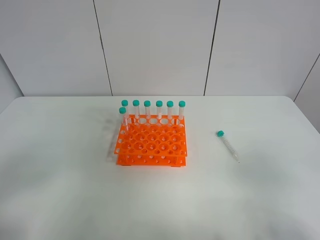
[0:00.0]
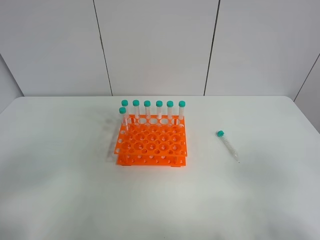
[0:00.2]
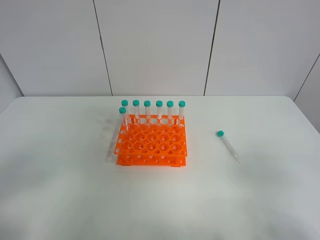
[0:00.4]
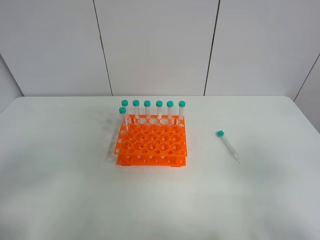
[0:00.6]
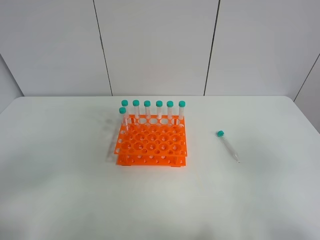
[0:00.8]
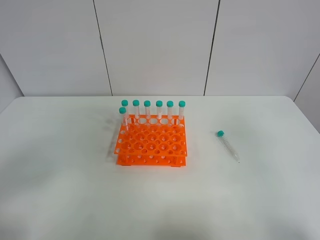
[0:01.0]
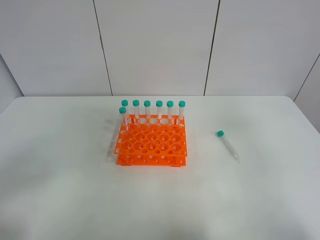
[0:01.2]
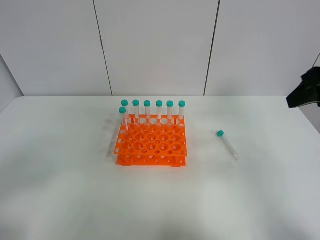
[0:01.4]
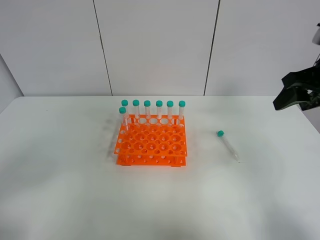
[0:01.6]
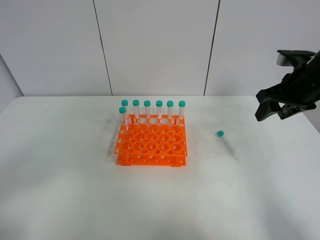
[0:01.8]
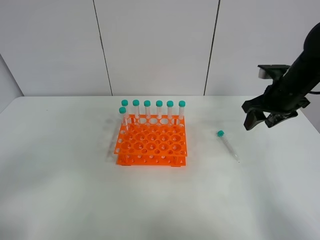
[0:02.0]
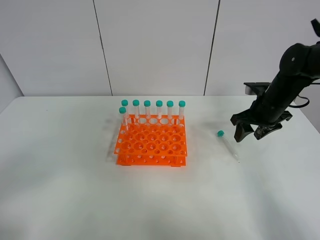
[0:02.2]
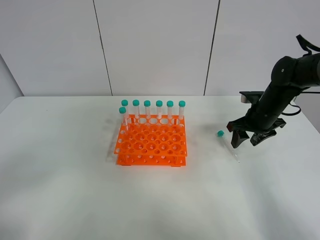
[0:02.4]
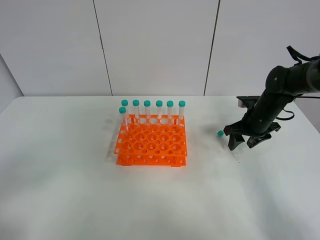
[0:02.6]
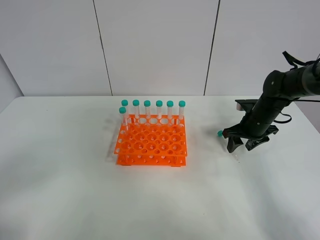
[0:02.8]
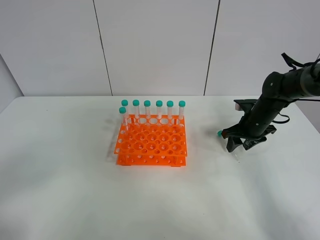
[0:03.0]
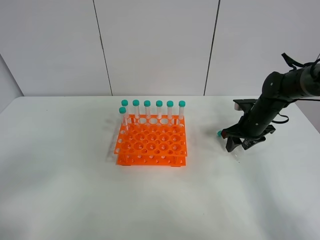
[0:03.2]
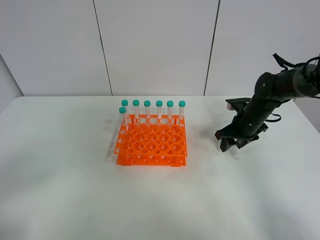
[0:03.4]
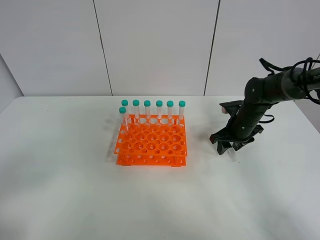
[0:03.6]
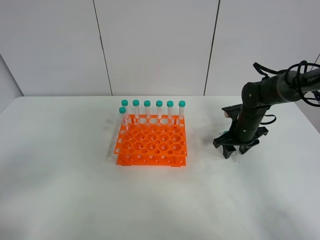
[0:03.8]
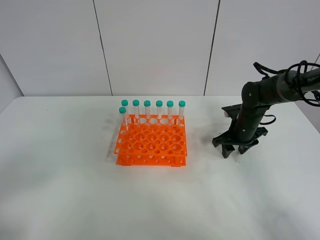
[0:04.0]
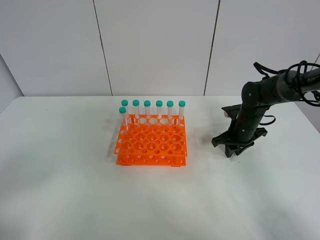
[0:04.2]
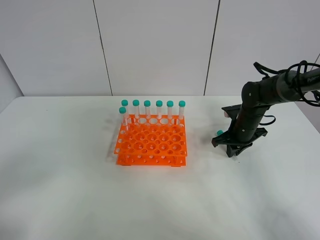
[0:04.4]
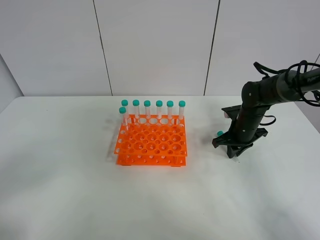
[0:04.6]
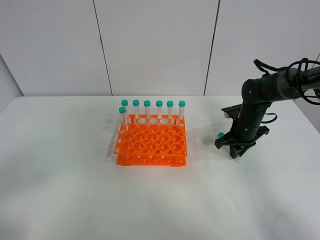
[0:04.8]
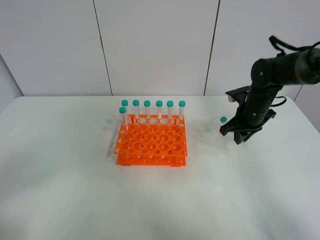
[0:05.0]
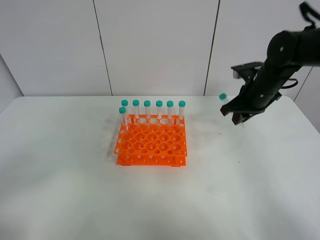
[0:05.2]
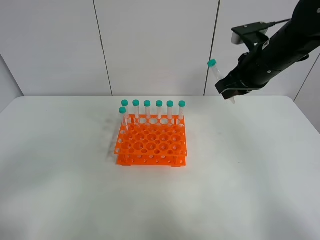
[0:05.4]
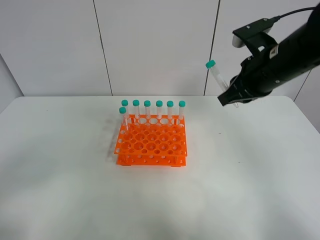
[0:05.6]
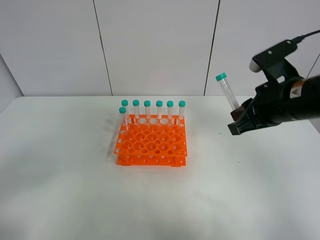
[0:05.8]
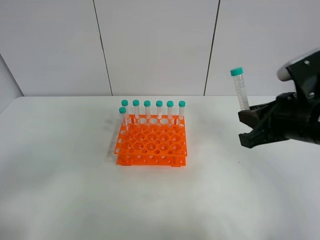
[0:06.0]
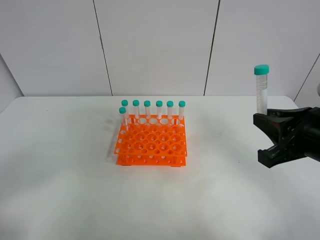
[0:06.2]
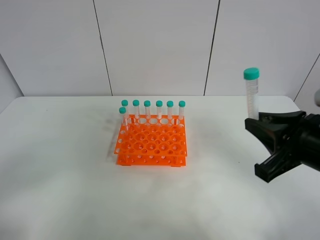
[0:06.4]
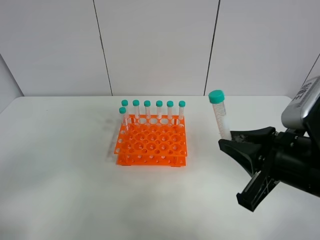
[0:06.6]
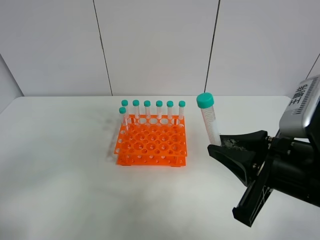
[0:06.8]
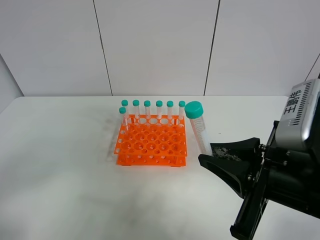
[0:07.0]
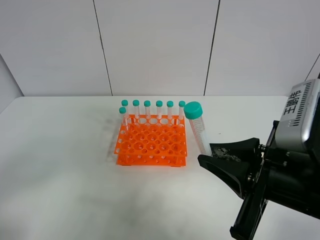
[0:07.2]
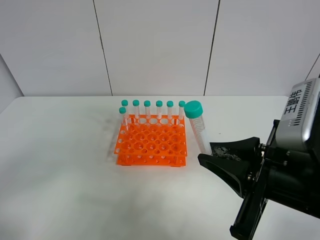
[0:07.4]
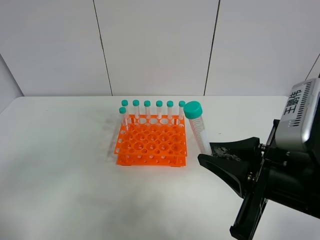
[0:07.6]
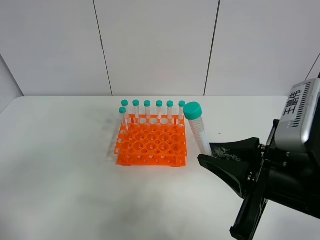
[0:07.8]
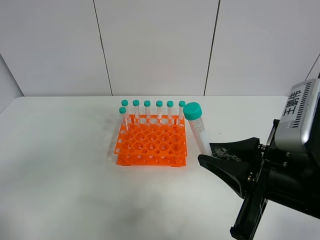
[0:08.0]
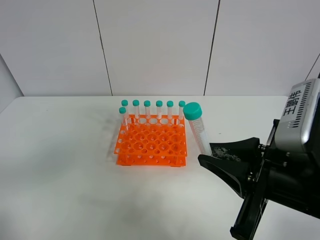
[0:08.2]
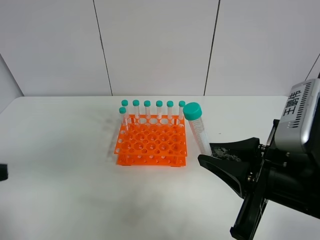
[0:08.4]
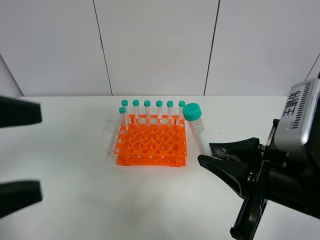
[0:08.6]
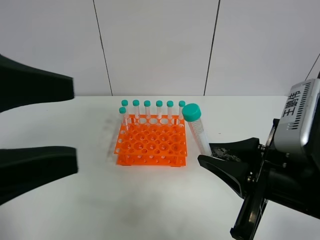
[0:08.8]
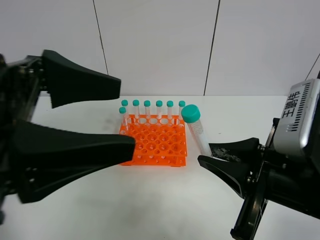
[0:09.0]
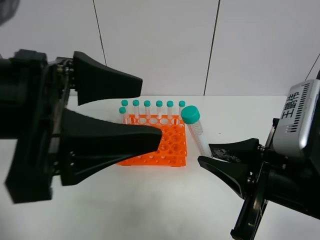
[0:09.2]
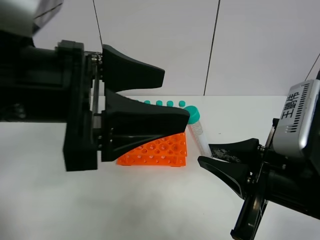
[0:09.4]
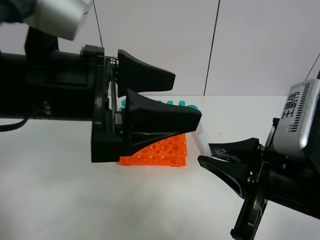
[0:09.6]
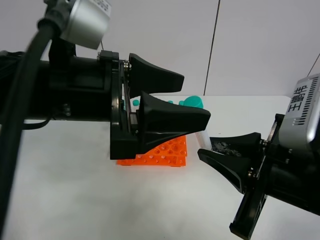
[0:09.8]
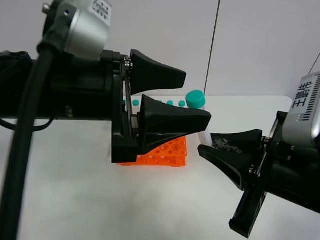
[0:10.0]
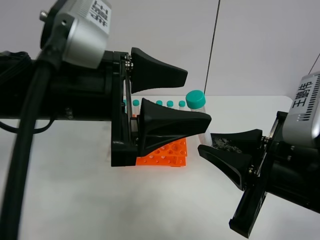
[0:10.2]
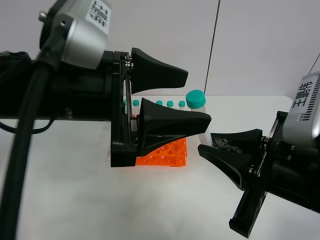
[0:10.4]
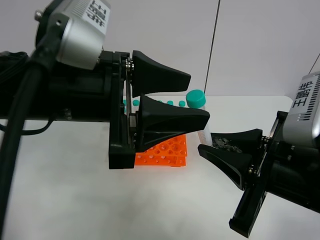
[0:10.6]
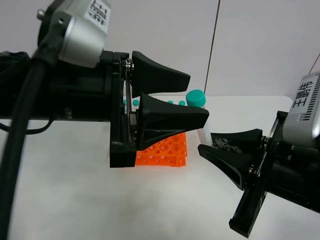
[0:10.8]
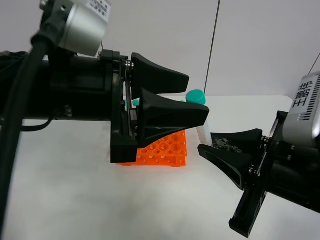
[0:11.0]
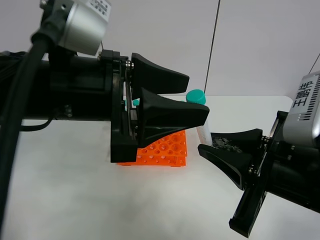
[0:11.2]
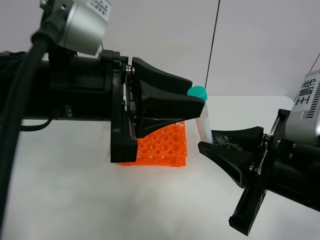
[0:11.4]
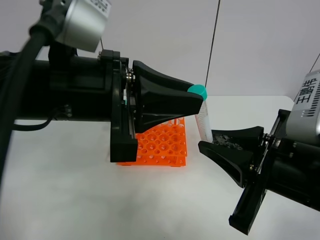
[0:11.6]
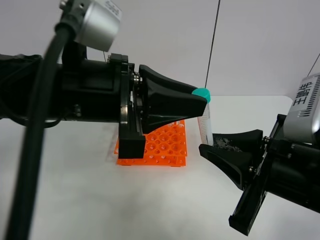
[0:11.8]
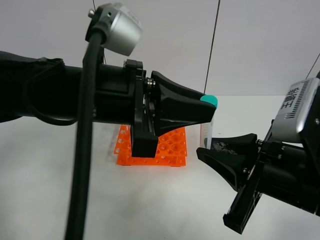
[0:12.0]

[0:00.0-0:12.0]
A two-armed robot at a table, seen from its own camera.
Task of the whole recording: Put the test tube on the table back onto the test tube rack.
Step, 0:00.0 to 0:04.4: Pick up the test tube with the right gripper.
0:00.0 to 0:01.6: The right gripper heads forward, covering some 30 cm.
0:01.6 to 0:03.0: The right gripper moves downward and forward, approximately 20 cm.
0:03.0 to 0:04.4: The right gripper closes its fingers.
0:04.4 to 0:06.0: The right gripper moves backward and upward, some 25 cm.
0:06.0 to 0:07.6: The right gripper shifts some 10 cm backward and to the left.
0:07.6 to 0:09.0: The left gripper moves to the right, forward and upward, about 20 cm.
0:09.0 to 0:10.4: The left gripper moves forward and to the right, about 10 cm.
0:10.4 to 0:12.0: The left gripper closes its fingers.

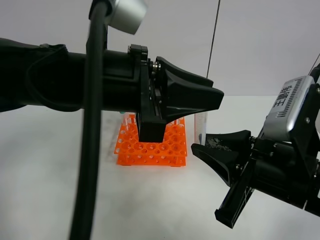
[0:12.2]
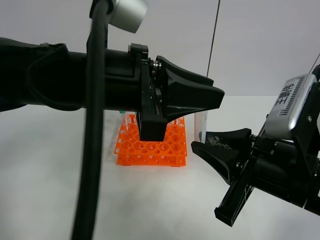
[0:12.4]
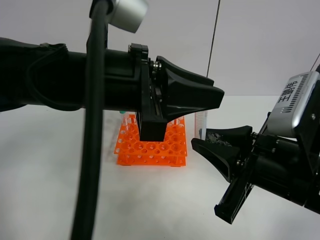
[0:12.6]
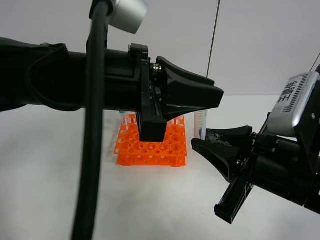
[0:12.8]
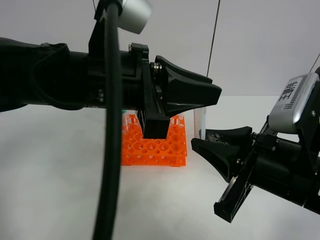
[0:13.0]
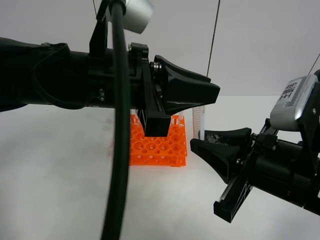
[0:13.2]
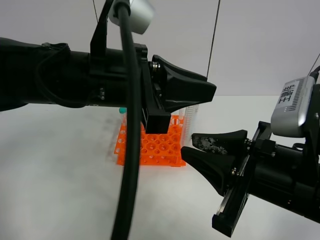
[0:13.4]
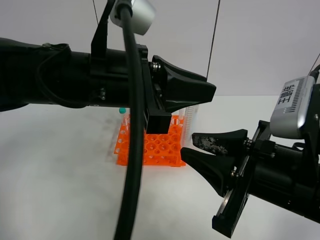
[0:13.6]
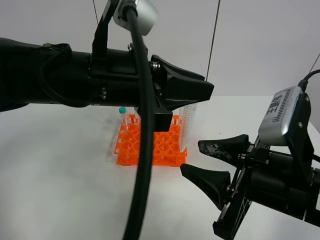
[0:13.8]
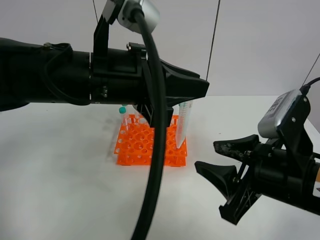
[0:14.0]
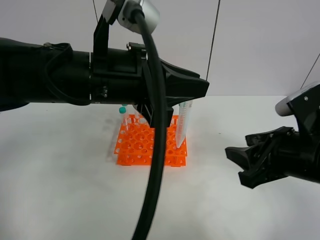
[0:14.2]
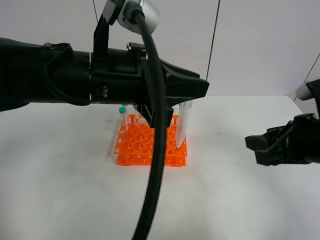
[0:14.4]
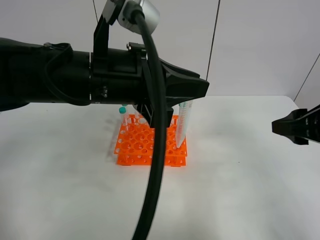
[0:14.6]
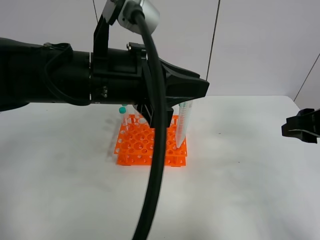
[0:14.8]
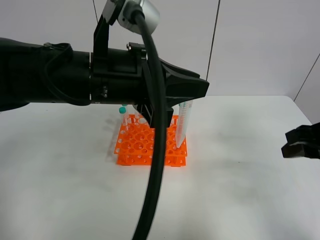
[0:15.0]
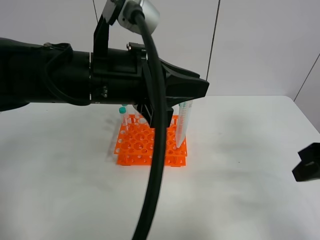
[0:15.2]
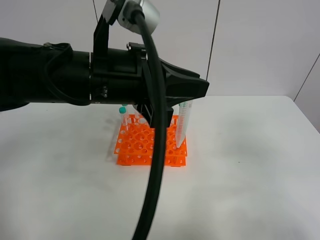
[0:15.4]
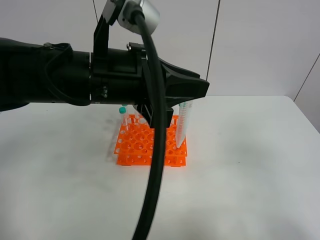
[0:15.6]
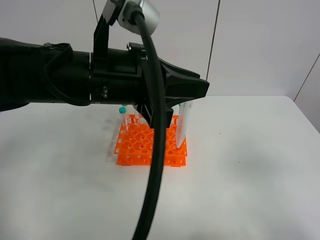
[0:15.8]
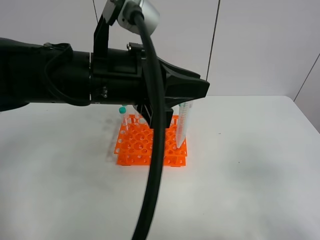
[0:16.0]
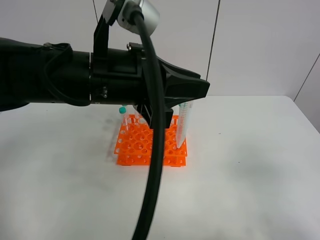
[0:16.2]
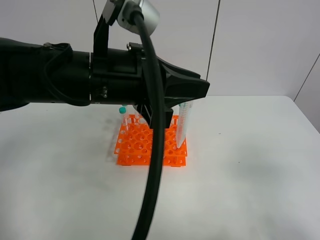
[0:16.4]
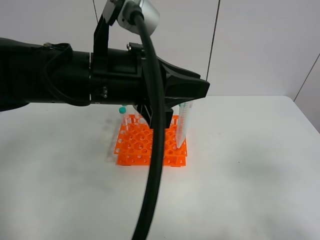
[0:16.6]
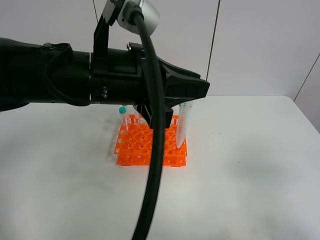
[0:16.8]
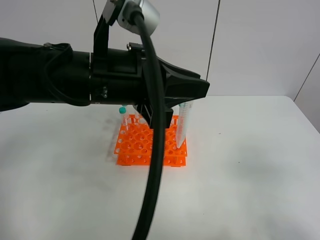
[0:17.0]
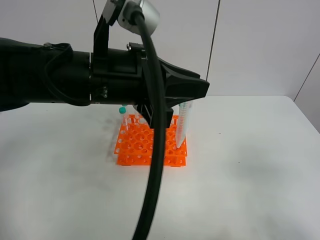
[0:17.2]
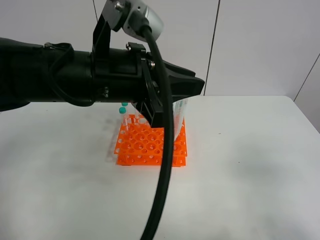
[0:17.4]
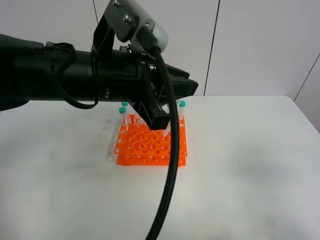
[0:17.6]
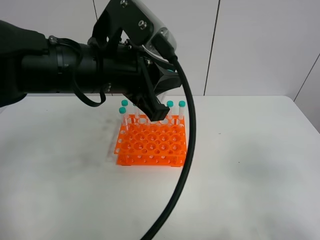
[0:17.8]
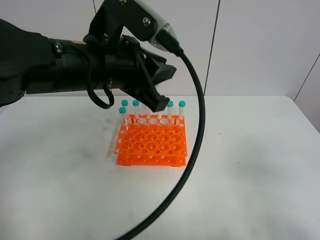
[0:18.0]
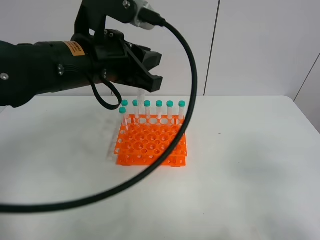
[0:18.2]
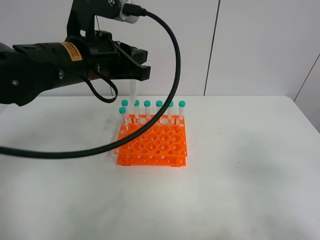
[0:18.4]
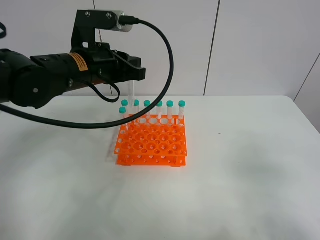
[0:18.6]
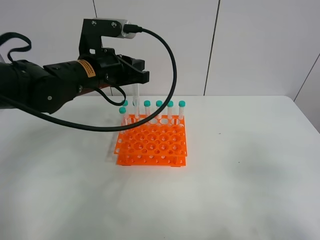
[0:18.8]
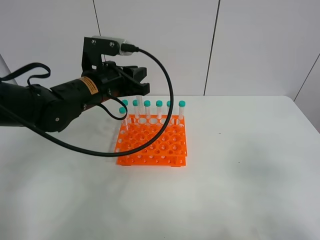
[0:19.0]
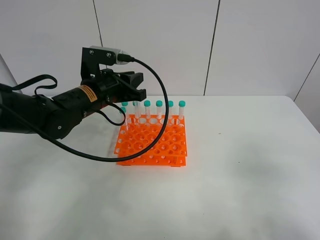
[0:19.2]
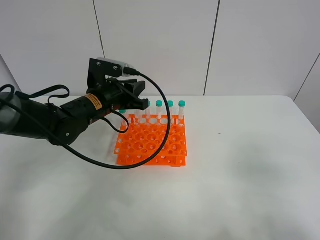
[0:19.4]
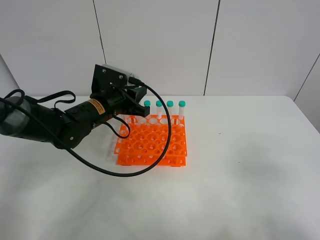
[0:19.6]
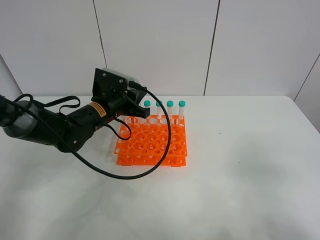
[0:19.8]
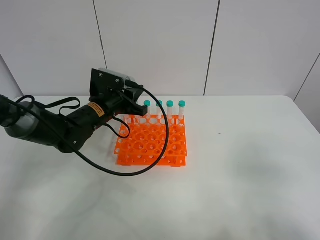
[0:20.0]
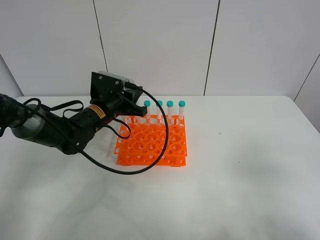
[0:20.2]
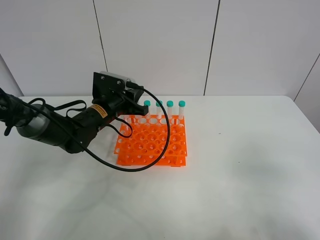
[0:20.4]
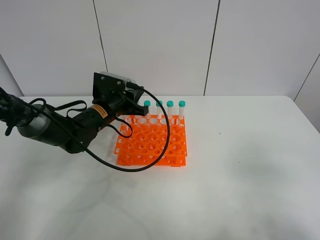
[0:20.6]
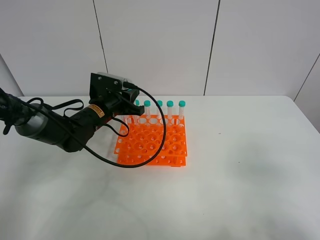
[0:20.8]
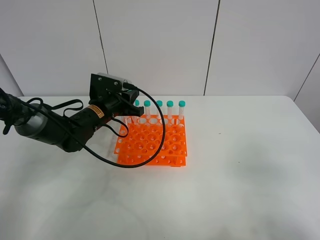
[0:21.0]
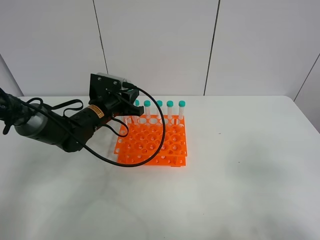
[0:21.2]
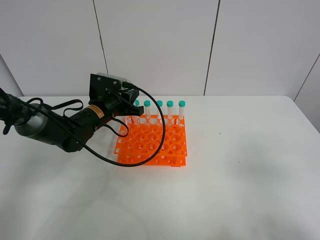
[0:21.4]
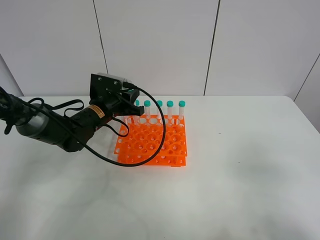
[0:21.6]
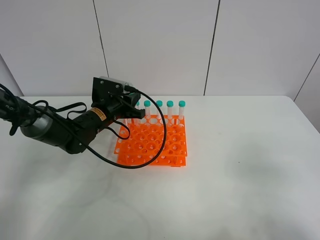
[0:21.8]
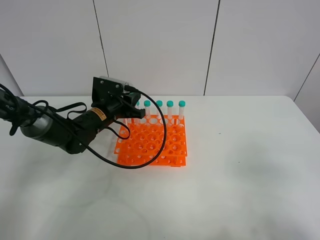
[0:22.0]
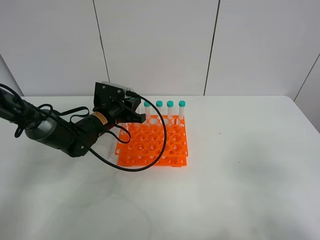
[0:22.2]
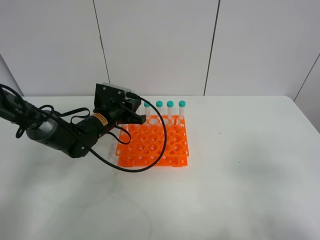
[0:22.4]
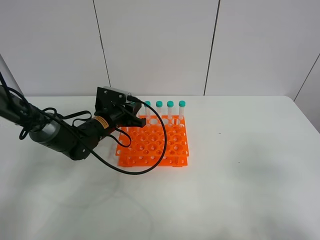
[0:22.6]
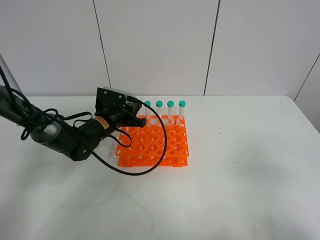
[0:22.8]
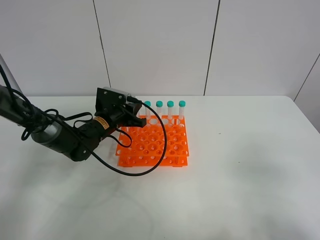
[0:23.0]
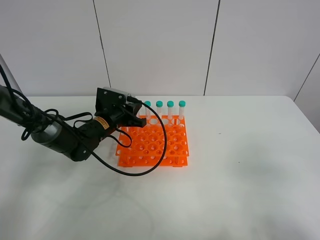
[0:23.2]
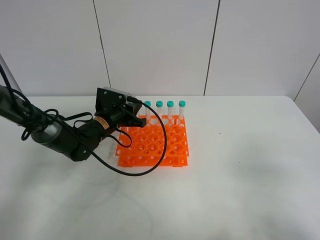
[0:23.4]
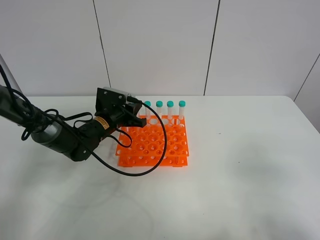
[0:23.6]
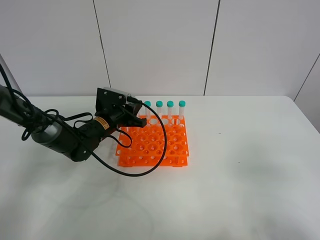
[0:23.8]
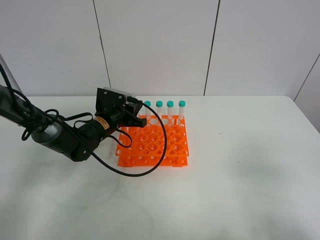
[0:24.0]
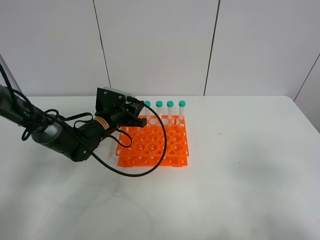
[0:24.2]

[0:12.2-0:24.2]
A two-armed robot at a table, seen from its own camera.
Task of the whole recording: Put the test tube on the table back onto the test tube rack.
0:12.2 to 0:13.8: The right gripper opens its fingers.
0:13.8 to 0:15.2: The right gripper heads to the right, covering roughly 15 cm.
0:15.2 to 0:16.6: The right gripper goes some 15 cm backward.
0:16.6 to 0:18.2: The left gripper shifts by about 5 cm.
0:18.2 to 0:19.8: The left gripper is displaced downward and forward by approximately 20 cm.
0:19.8 to 0:21.2: The grippers stay close to where they were, moving slightly.
0:21.2 to 0:22.6: There are only small adjustments of the grippers.
0:22.6 to 0:24.2: Neither gripper changes place.
